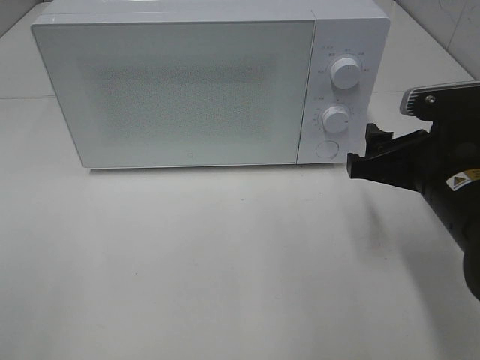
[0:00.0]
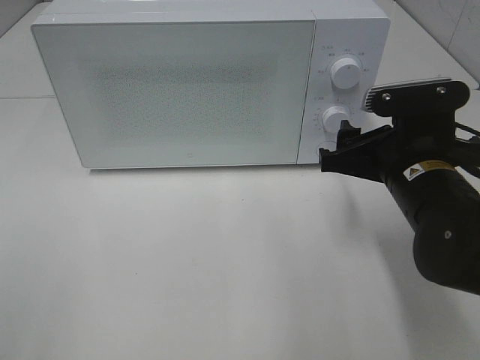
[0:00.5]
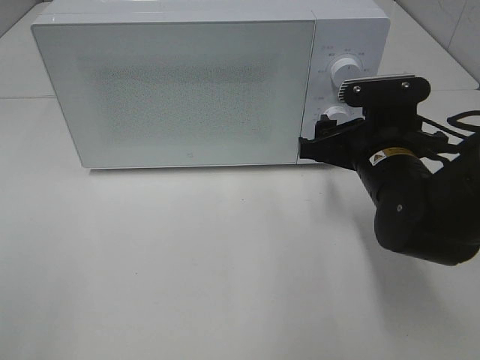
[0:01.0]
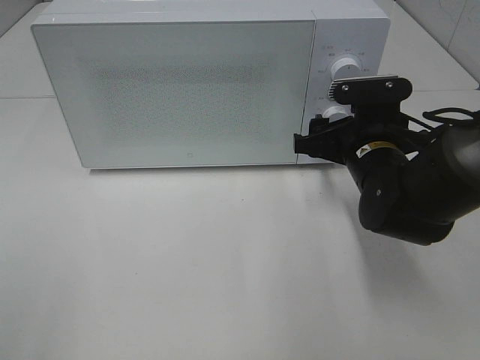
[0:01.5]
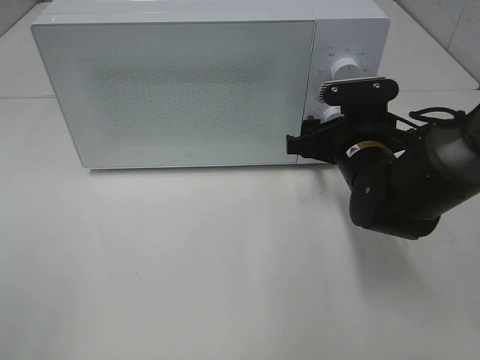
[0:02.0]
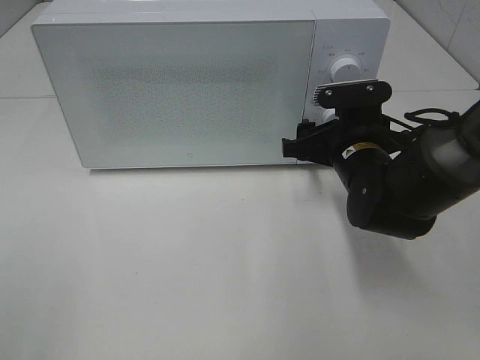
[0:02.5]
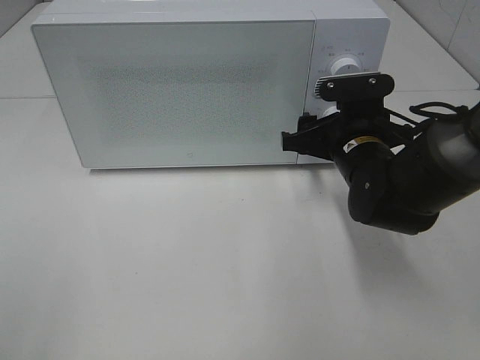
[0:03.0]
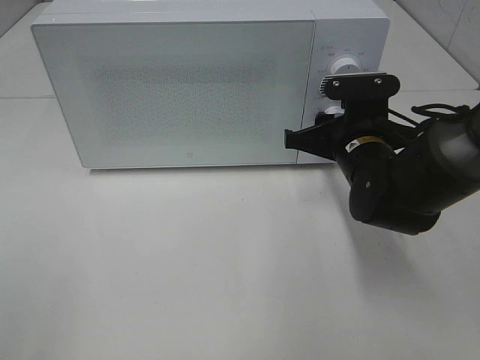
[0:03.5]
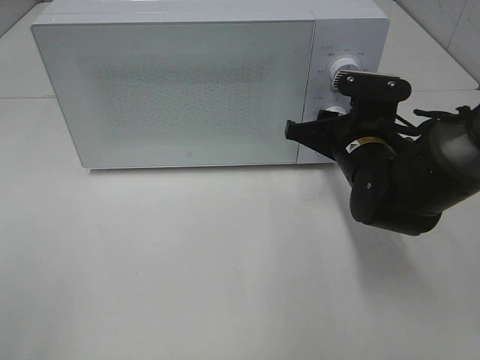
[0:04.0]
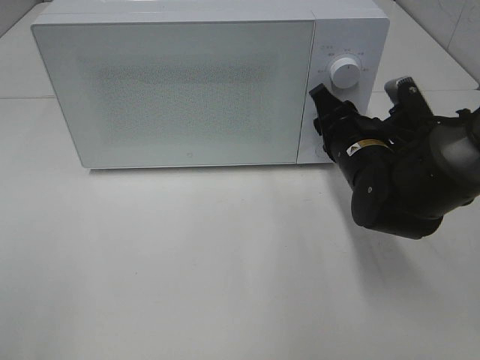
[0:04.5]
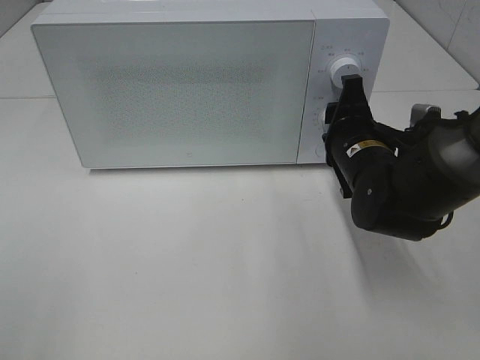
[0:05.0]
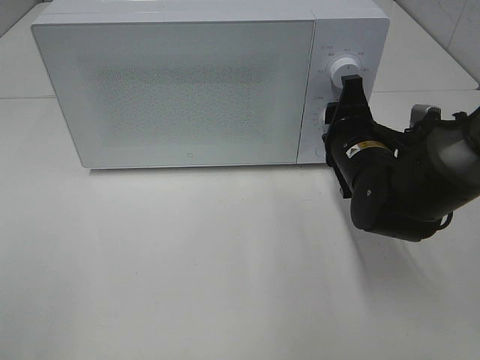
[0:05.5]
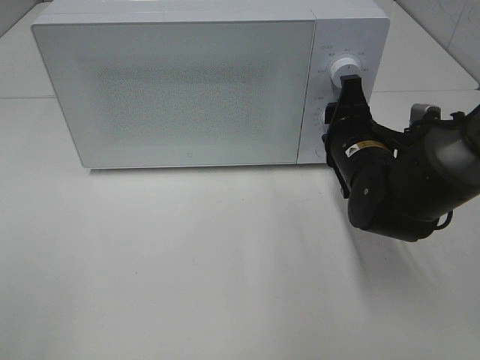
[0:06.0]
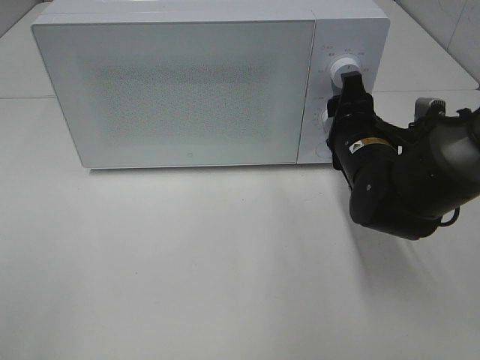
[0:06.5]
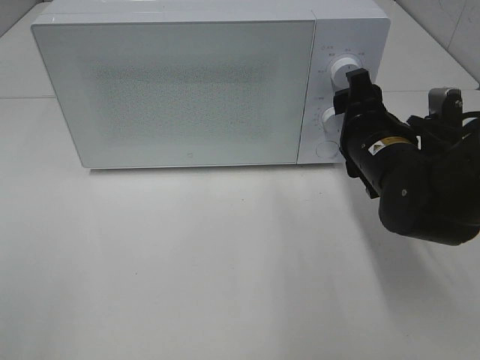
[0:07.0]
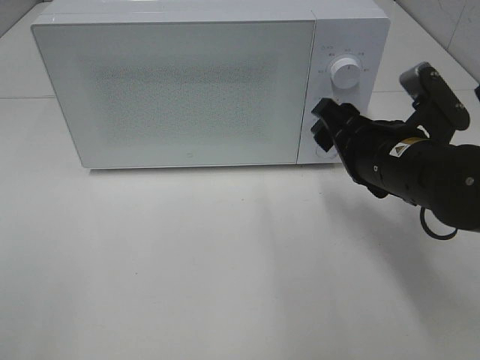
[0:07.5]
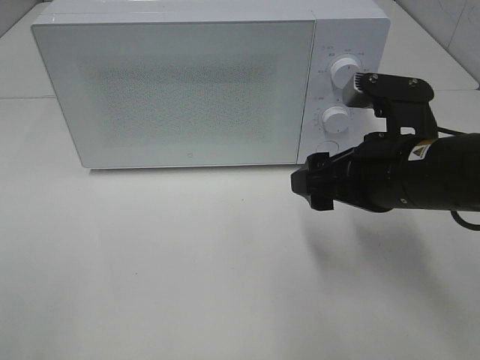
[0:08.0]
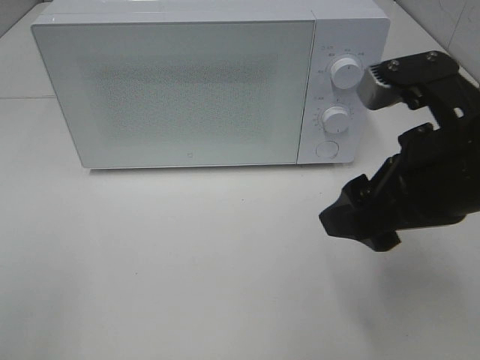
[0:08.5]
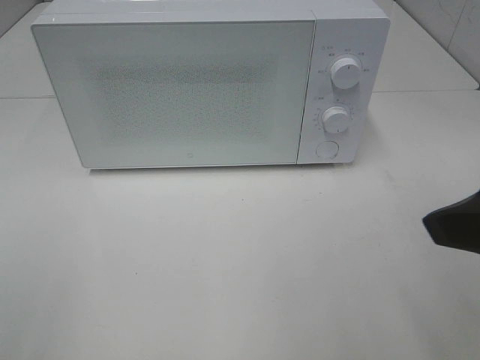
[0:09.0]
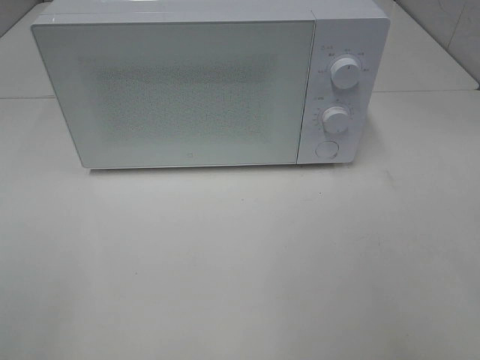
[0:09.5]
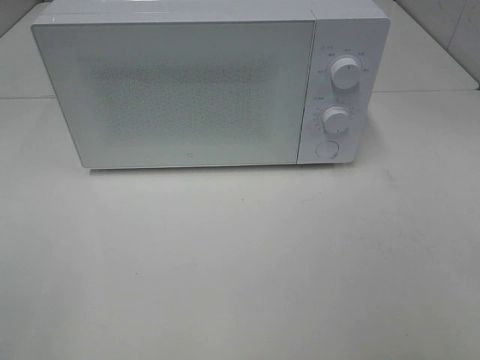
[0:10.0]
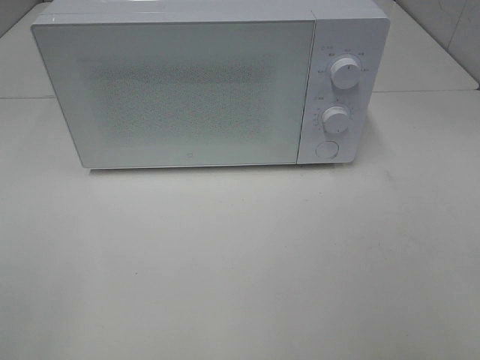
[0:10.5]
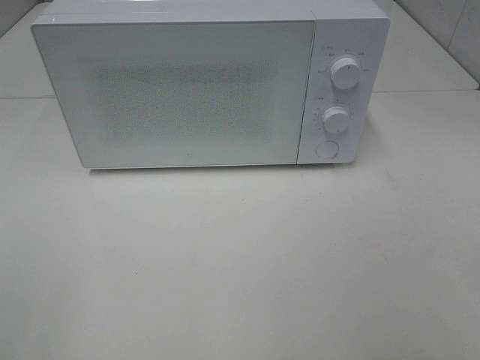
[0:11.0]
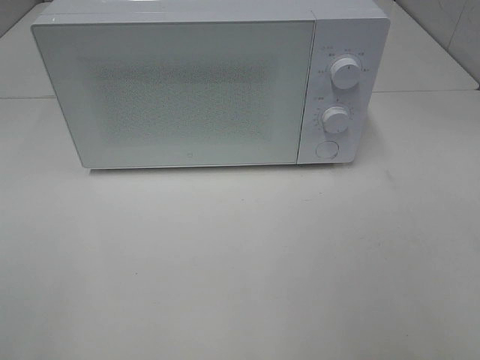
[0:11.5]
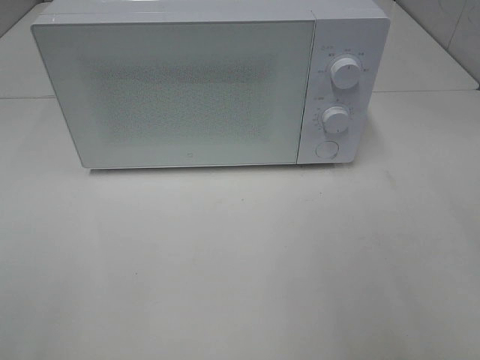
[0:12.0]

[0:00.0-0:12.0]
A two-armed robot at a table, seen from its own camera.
Task of the whole recording: Heat the burger.
Step, 0.0 to 6.0 s: Right hand: twist timer button.
0.0 to 2.0 s: The right gripper travels forward and downward by approximately 10 cm.
2.0 to 4.0 s: The right gripper closes up.
6.0 to 8.0 s: The right gripper shifts roughly 10 cm backward and upward, and opens.
8.0 to 10.0 s: The right gripper shifts some 30 cm backward, to the right and upward.

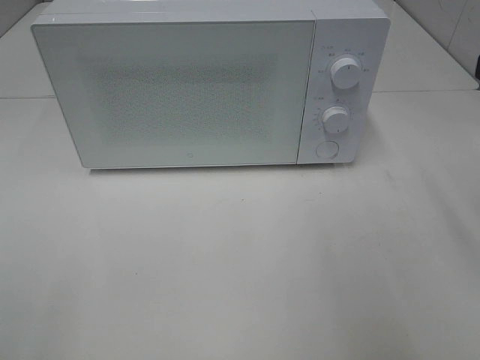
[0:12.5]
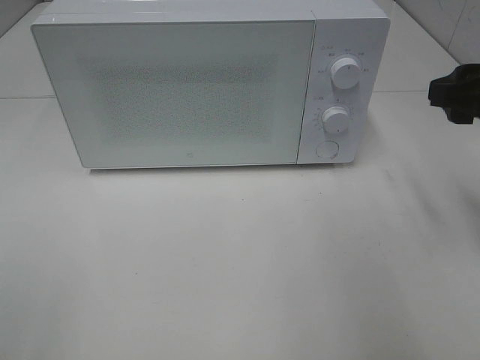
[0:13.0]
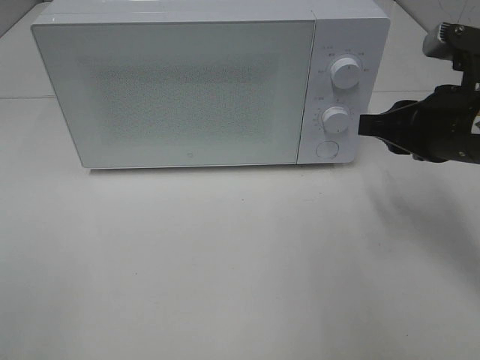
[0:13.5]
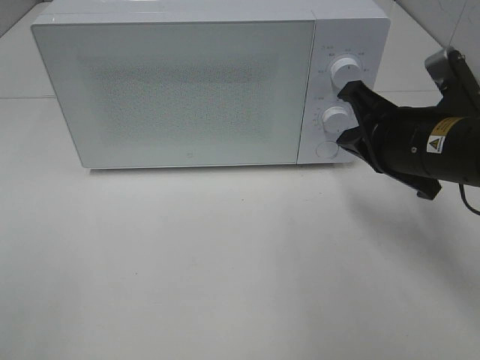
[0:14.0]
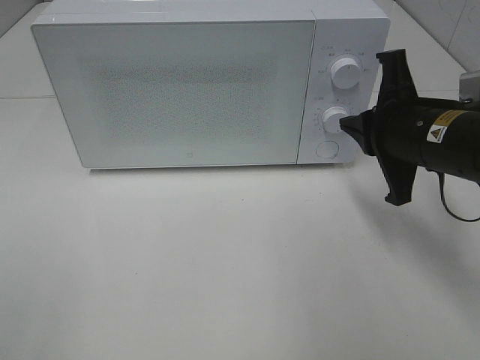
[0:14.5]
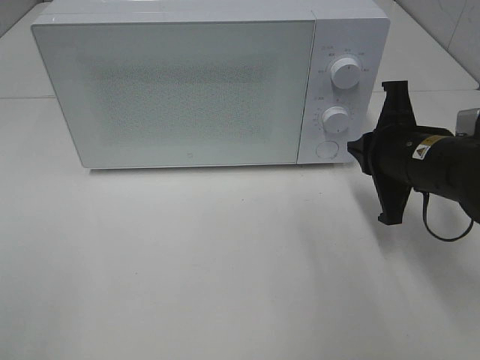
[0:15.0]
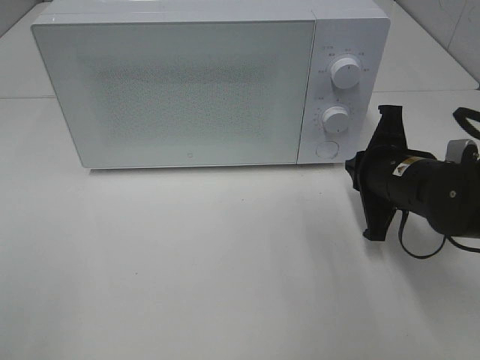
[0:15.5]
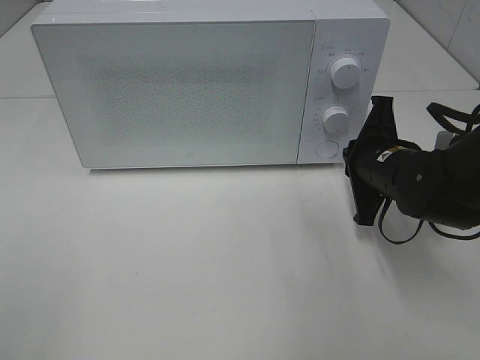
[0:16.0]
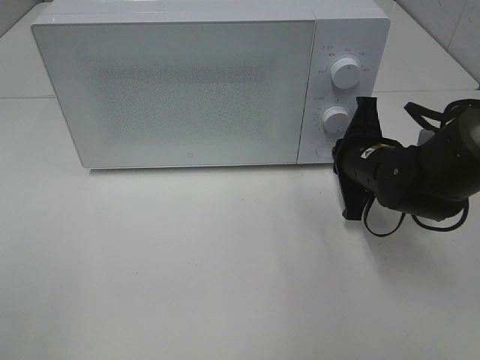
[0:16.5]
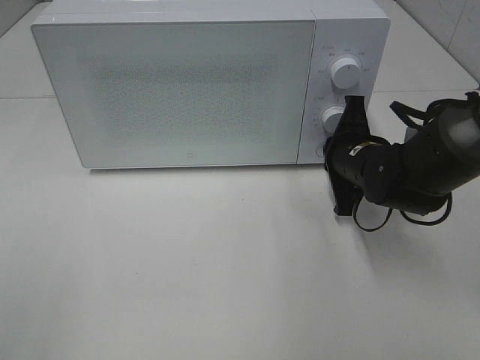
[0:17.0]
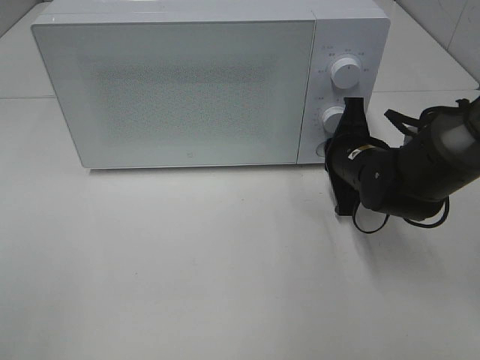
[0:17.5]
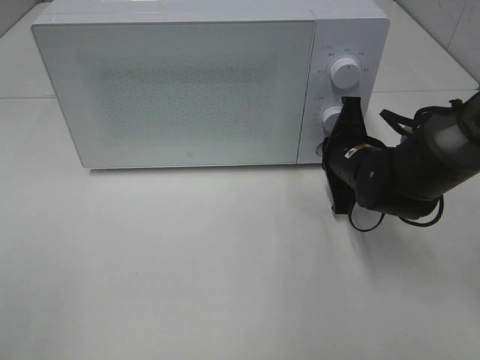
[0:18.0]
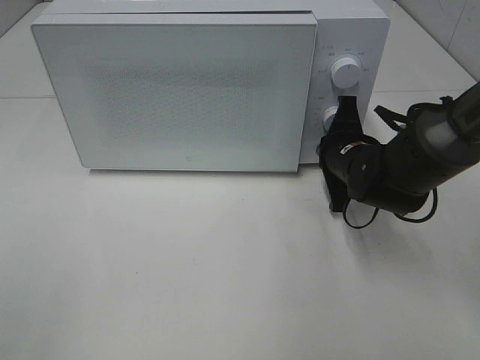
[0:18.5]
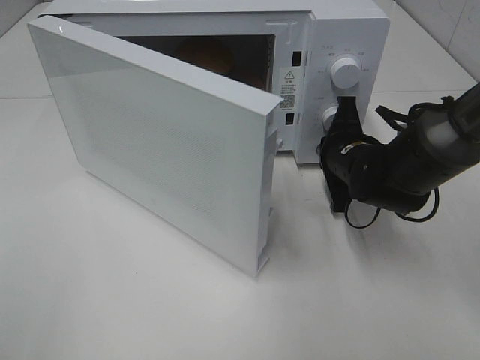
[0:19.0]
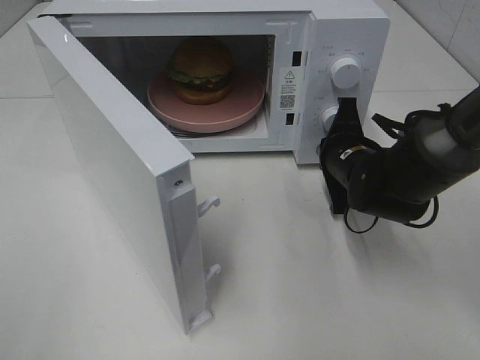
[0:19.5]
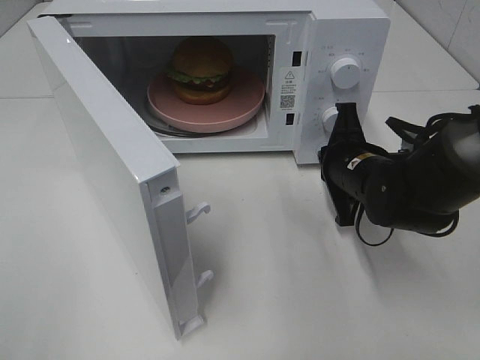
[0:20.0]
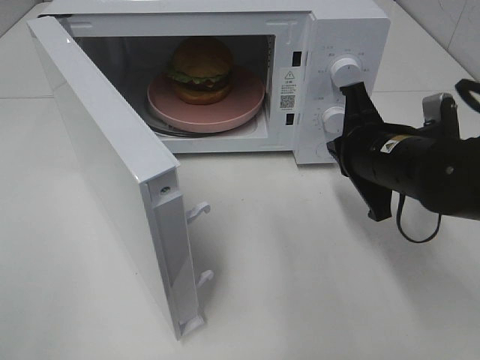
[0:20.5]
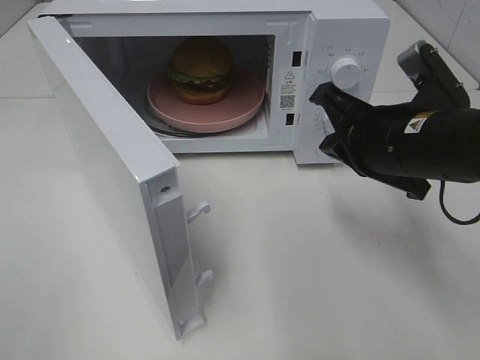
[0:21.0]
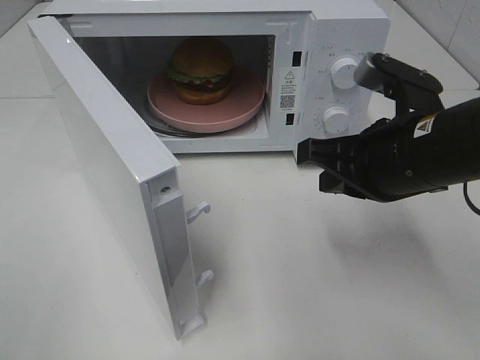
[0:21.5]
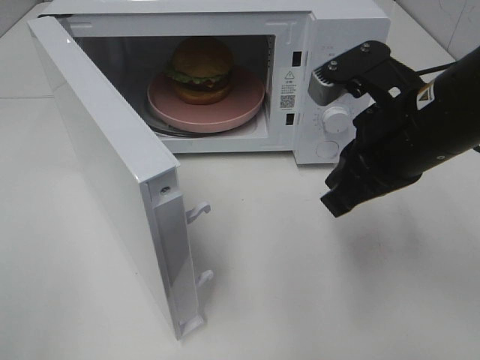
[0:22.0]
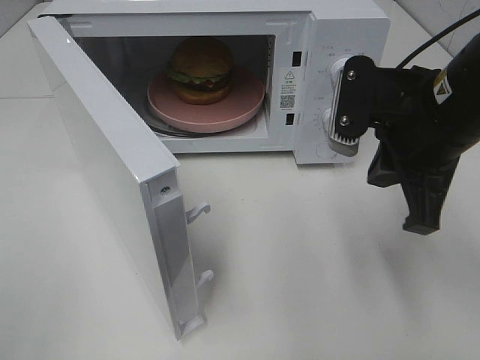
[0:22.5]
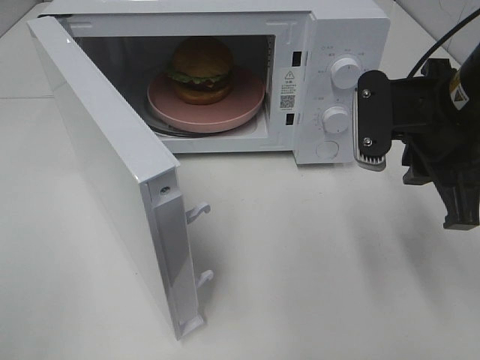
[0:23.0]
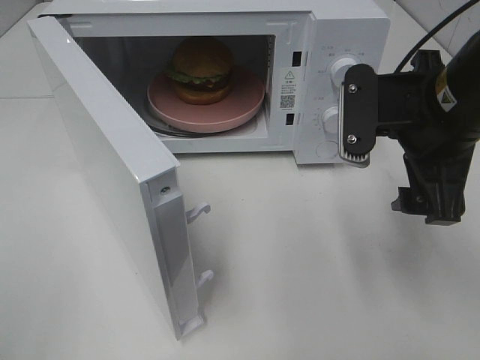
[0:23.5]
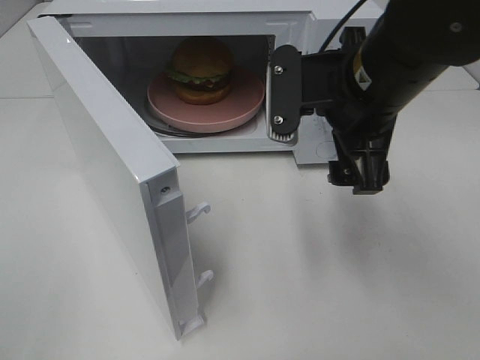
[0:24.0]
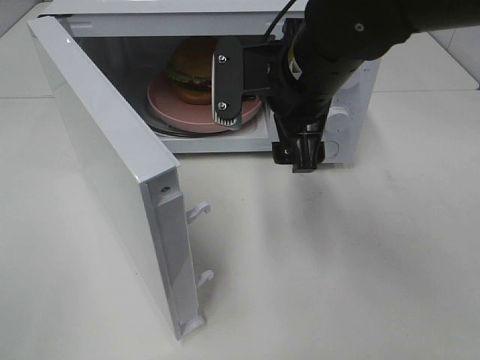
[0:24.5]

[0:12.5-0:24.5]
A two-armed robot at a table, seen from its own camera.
Task of the whole recording: Heat the burger.
Step, 12.5 to 19.5 s: Right hand: press the switch.
12.5 to 14.5 s: The right gripper moves downward, to the left and forward, approximately 15 cm, and closes.
14.5 to 16.5 s: The right gripper travels downward and forward by approximately 10 cm.
16.5 to 18.5 s: The grippers move only a little.
18.5 to 20.5 s: The right gripper moves backward and upward, approximately 10 cm.
20.5 to 22.5 s: The right gripper goes some 10 cm upward.
22.5 to 24.5 s: The right gripper moves to the left and forward, roughly 10 cm, and opens.

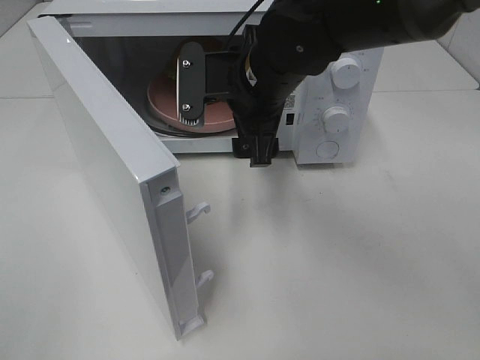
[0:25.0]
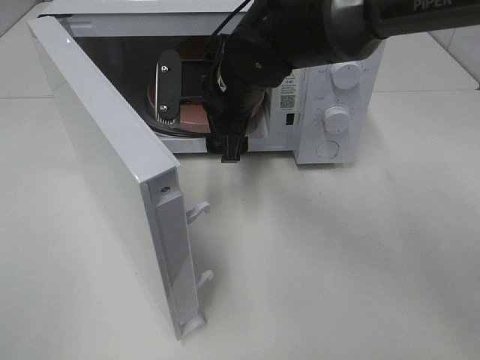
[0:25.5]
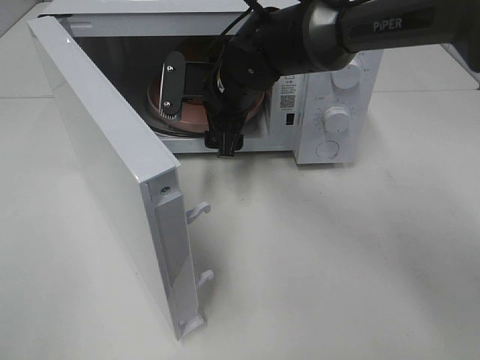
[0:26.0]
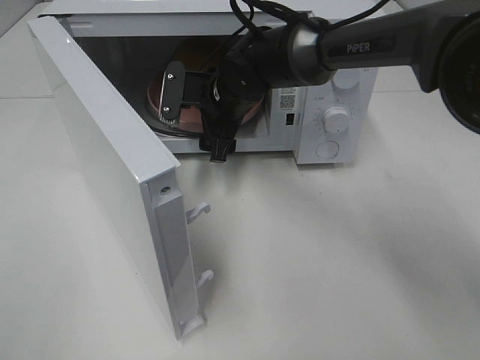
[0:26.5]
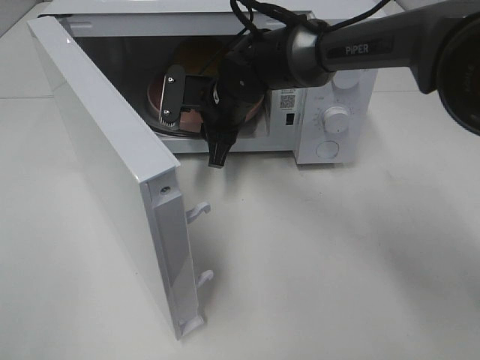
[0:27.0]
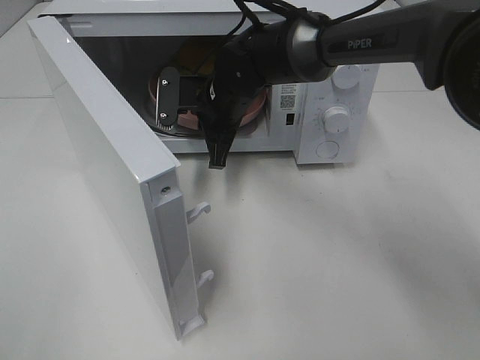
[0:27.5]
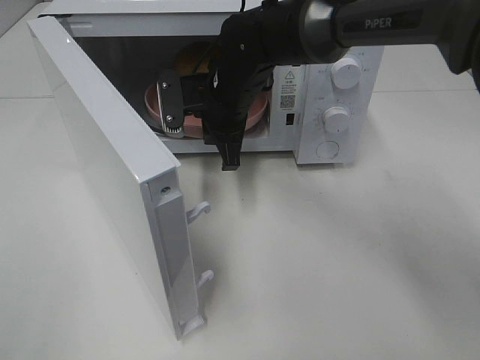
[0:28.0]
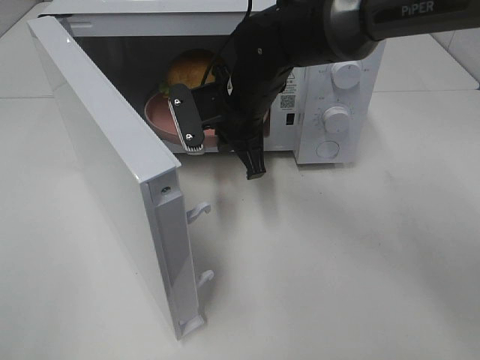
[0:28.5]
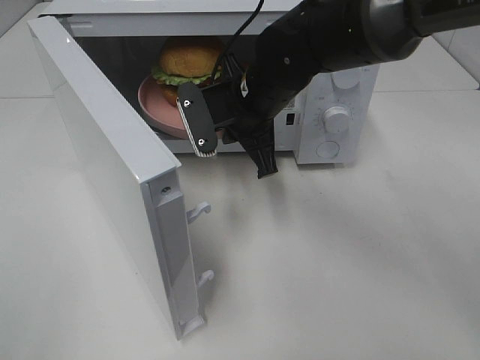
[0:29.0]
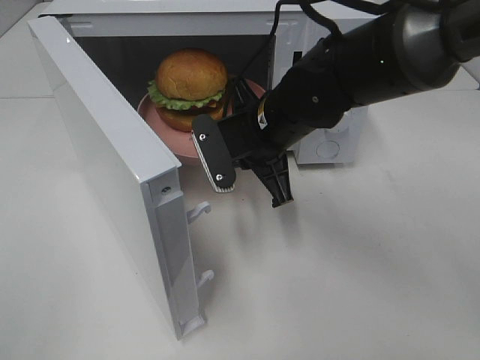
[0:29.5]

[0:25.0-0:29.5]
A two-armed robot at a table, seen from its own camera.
Task of the whole recording: Heat the burger.
Step, 25.0 to 27.0 s: Right hand: grab the plate with the hamburger.
25.0 to 27.0 s: The right gripper heads forward and downward, covering some 10 cm, and closes.
27.0 to 29.5 s: The right gripper moves backward and to the right, some 10 cm, and closes.
